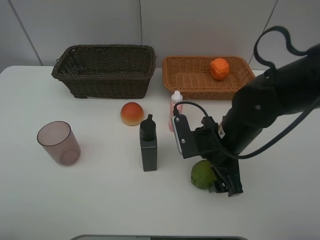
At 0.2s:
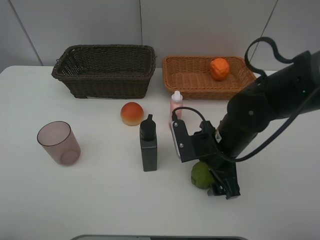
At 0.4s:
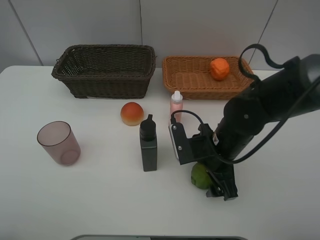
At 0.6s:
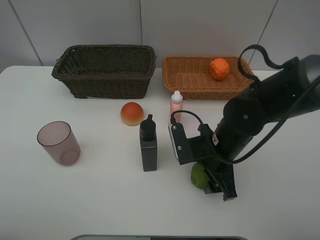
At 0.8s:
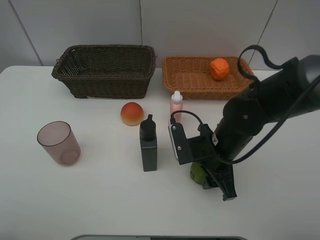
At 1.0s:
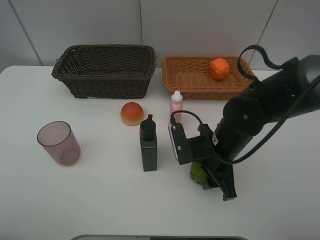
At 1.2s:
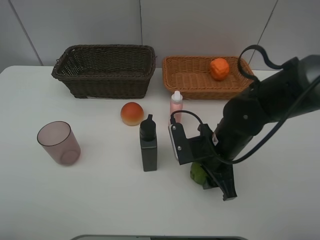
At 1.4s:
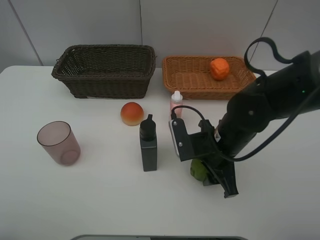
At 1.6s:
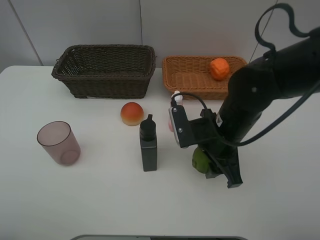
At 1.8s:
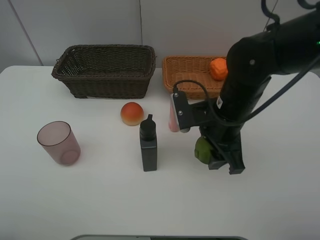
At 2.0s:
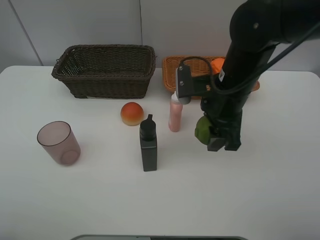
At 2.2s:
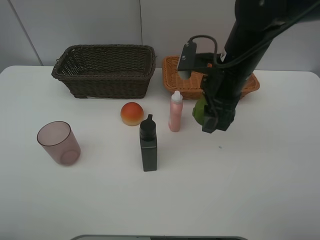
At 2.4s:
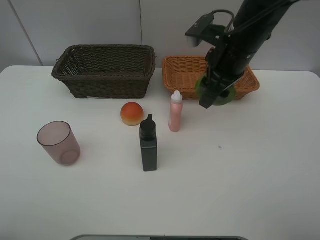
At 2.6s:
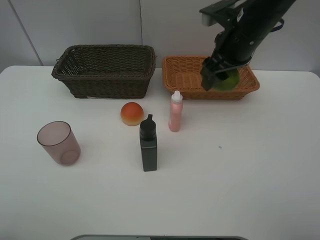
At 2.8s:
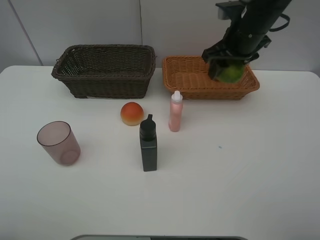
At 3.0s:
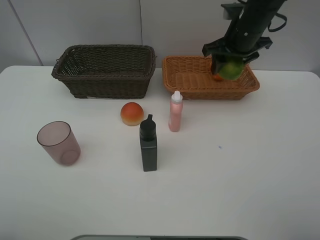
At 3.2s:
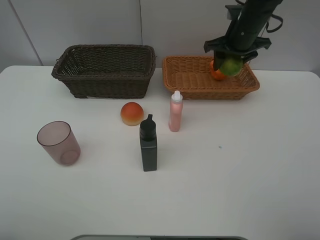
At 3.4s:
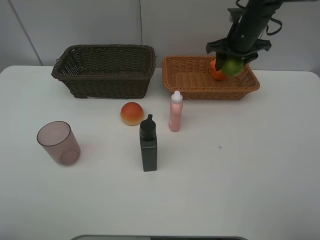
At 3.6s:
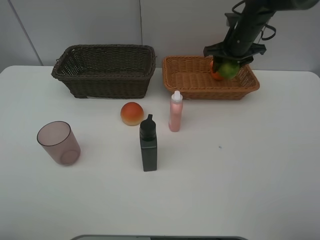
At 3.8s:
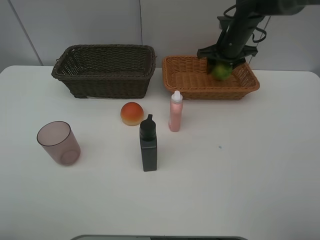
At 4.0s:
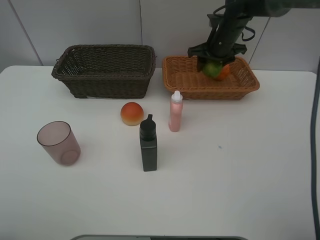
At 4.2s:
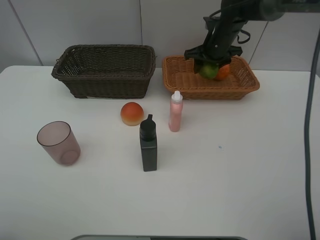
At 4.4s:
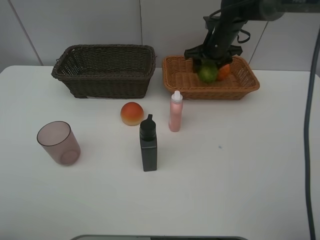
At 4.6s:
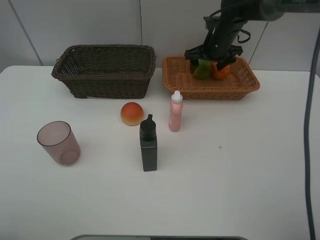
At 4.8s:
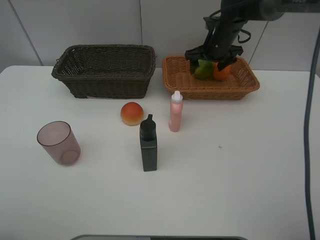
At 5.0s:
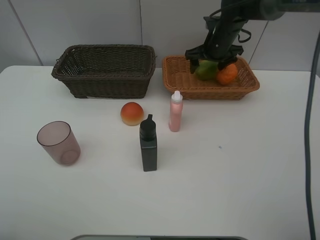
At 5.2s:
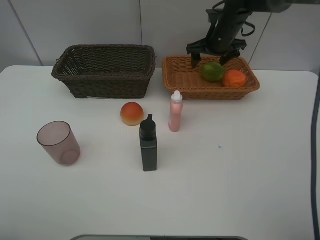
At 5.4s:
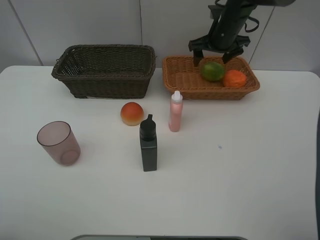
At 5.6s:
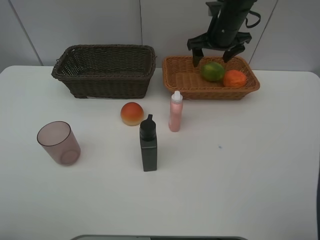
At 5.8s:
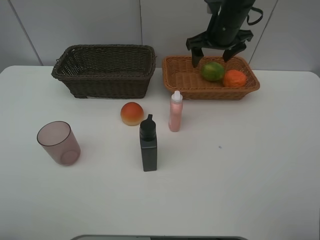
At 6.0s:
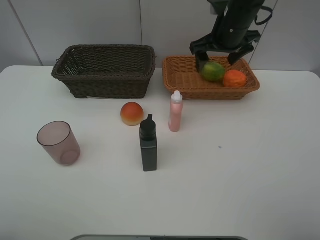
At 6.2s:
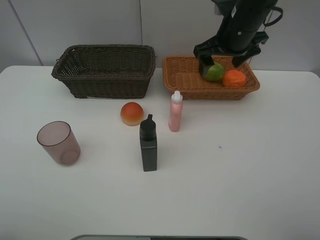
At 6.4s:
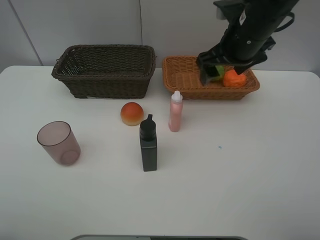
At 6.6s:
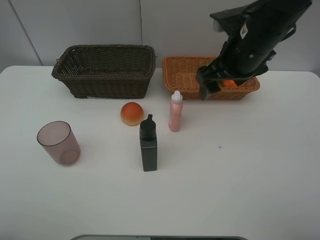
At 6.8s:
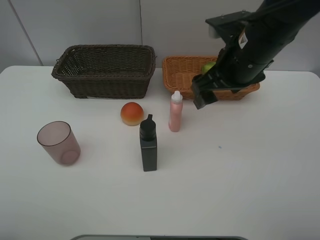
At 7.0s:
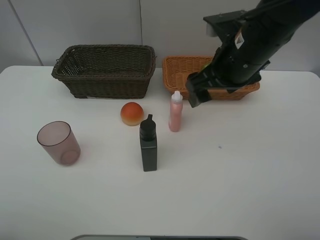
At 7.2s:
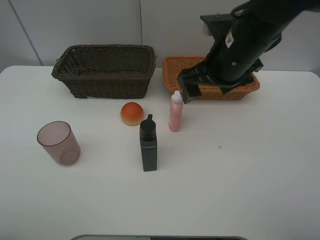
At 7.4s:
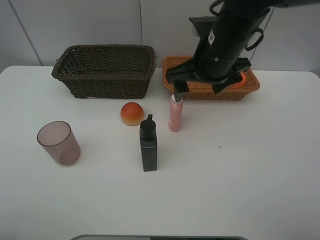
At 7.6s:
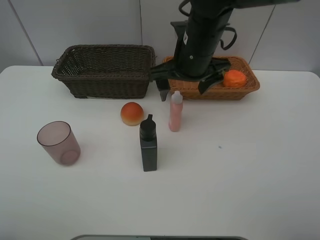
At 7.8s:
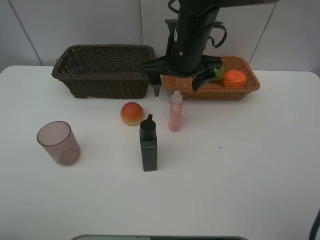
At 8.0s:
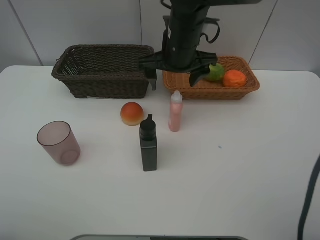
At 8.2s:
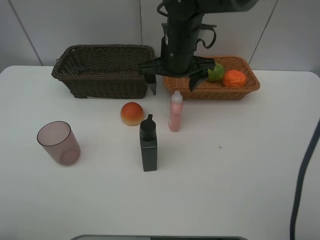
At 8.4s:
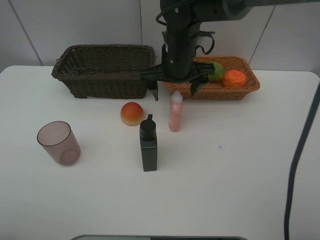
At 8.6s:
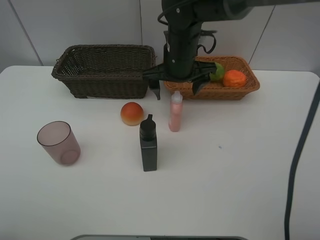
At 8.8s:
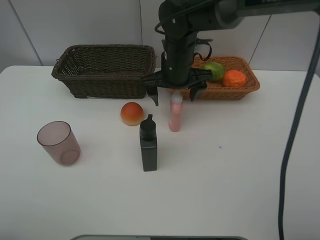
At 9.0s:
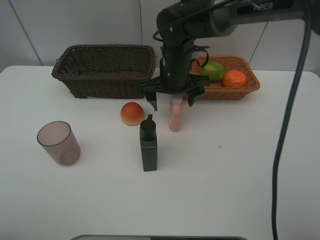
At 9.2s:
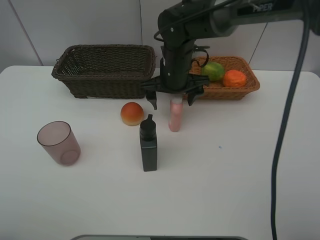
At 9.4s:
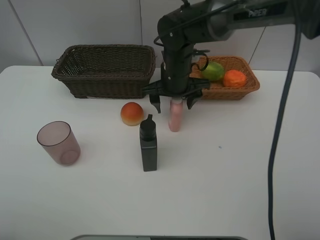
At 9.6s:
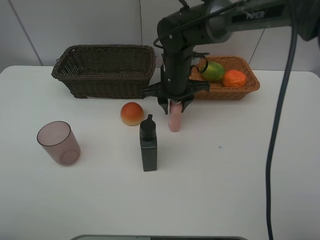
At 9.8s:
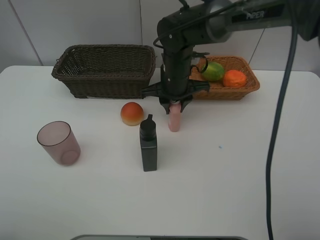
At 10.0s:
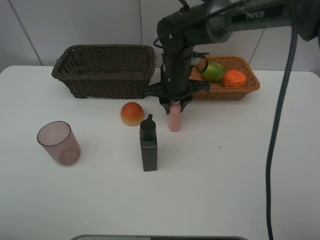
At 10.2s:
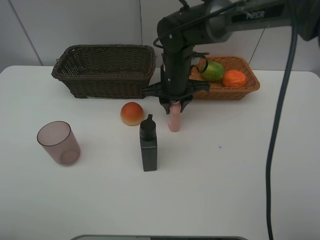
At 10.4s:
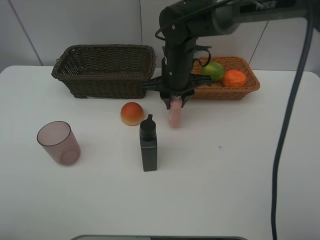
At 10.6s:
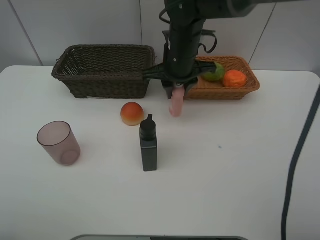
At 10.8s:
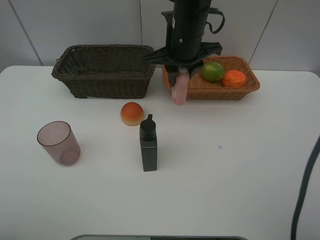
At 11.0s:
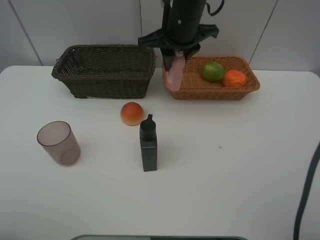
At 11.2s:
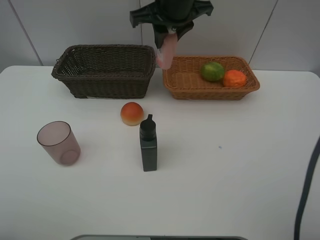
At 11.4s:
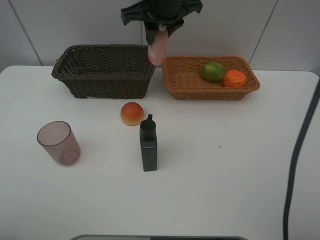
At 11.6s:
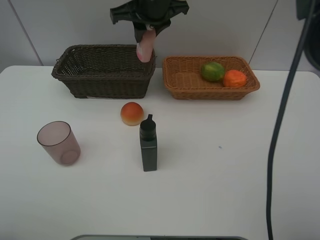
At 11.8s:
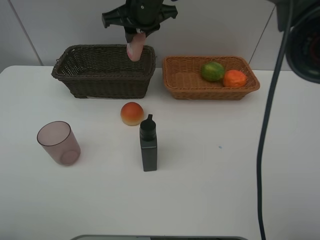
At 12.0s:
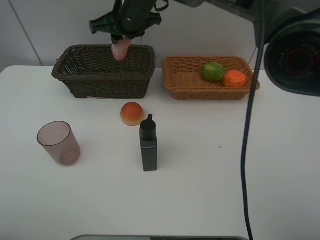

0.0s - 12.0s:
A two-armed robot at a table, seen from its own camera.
Task of the whole recording: place multiple objects separately in different baskets.
0.0s - 1.6s: The right gripper closes up.
1.6s - 3.0s: The right gripper moves forward and upward, some 20 cm.
3.0s - 4.4s: The right gripper goes about 10 cm forward and downward.
4.4s - 6.0s: The right gripper travels backward and upward by approximately 10 cm.
6.0s - 7.6s: The right gripper is displaced to the left and backward by roughly 10 cm.
7.6s - 9.0s: The right gripper goes approximately 5 cm downward.
9.0s - 10.4s: The right gripper closes.
10.4s - 12.0s: The right gripper shifts about 15 cm to the left, upward and forward.

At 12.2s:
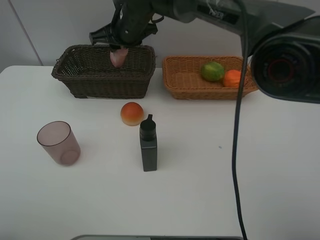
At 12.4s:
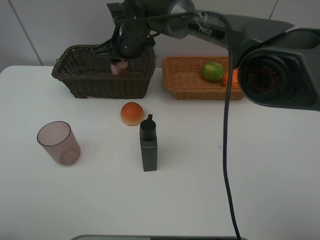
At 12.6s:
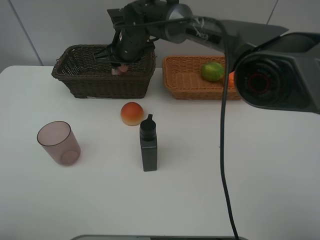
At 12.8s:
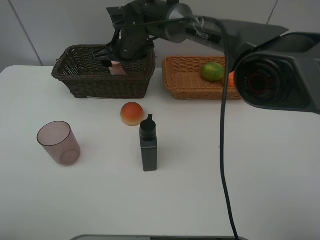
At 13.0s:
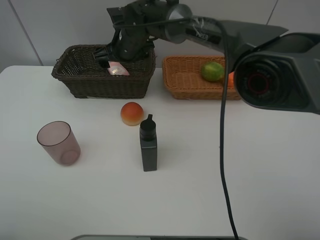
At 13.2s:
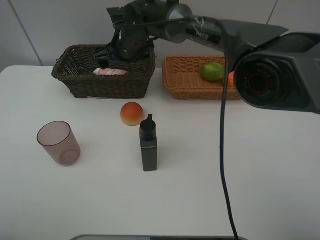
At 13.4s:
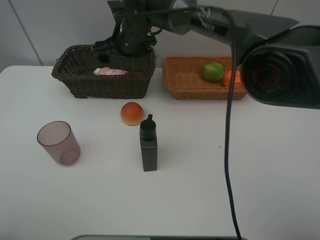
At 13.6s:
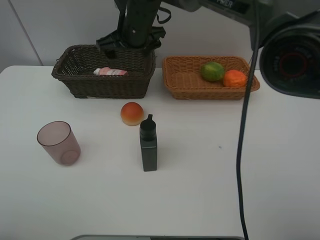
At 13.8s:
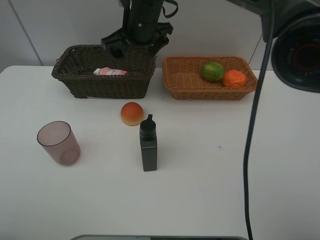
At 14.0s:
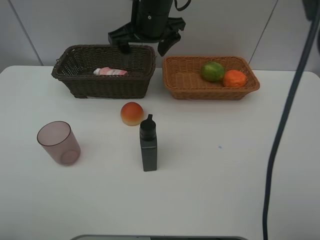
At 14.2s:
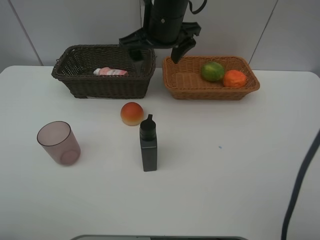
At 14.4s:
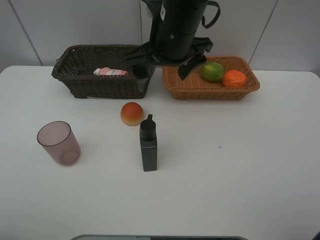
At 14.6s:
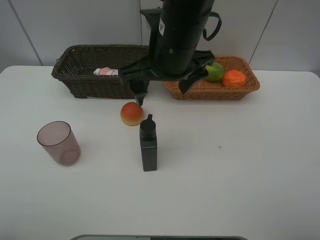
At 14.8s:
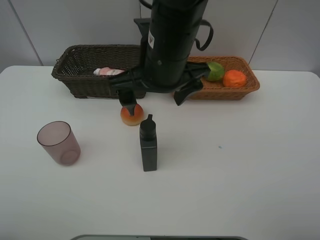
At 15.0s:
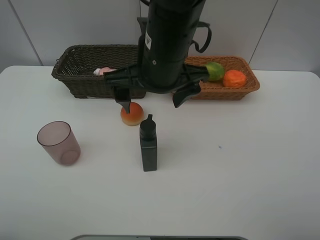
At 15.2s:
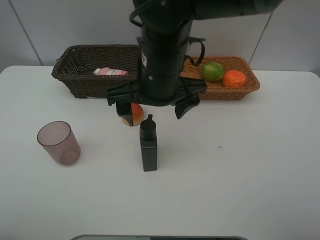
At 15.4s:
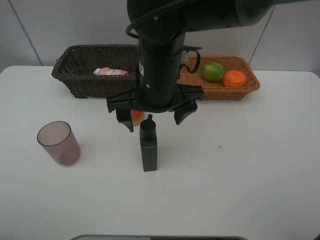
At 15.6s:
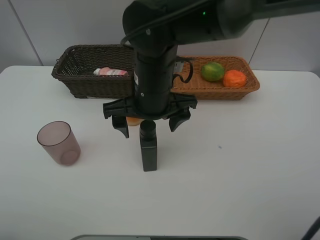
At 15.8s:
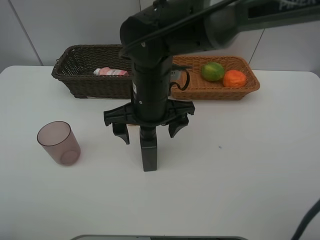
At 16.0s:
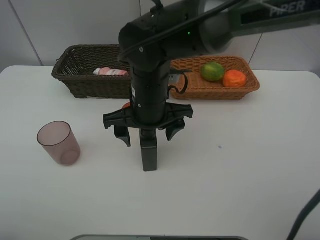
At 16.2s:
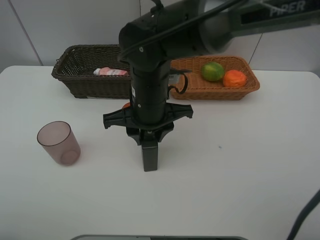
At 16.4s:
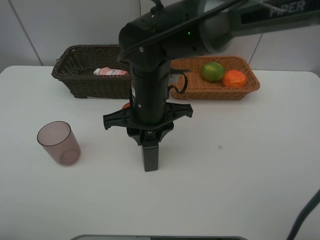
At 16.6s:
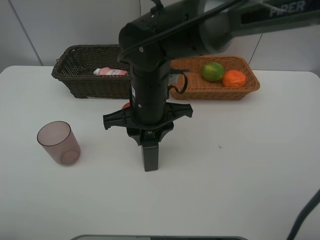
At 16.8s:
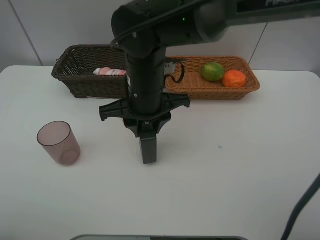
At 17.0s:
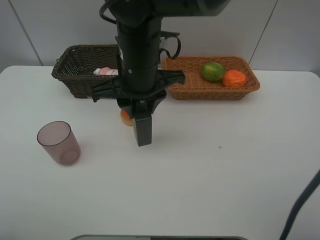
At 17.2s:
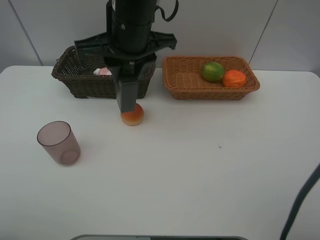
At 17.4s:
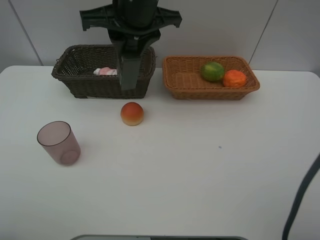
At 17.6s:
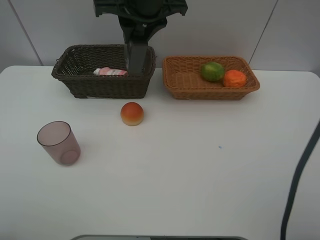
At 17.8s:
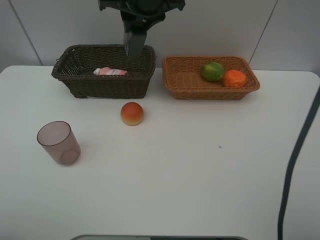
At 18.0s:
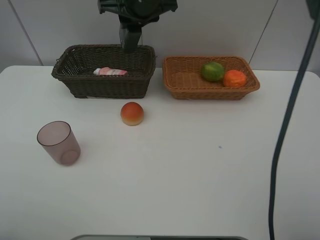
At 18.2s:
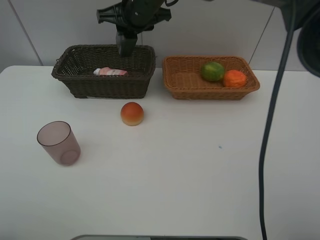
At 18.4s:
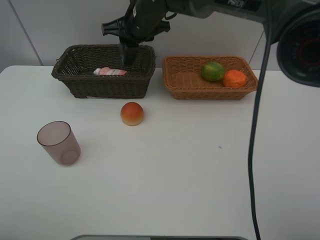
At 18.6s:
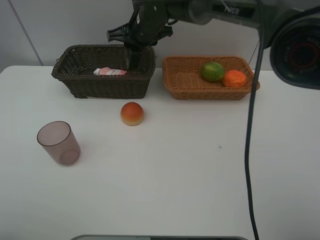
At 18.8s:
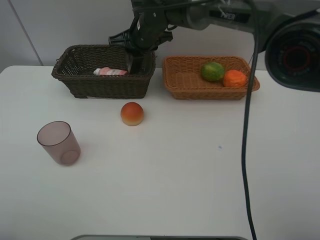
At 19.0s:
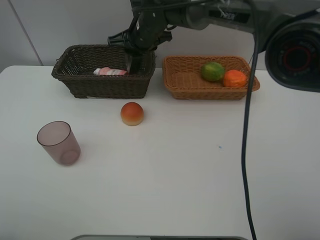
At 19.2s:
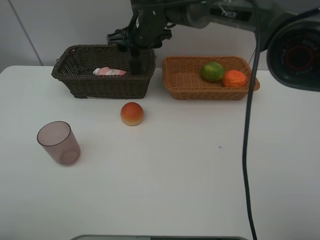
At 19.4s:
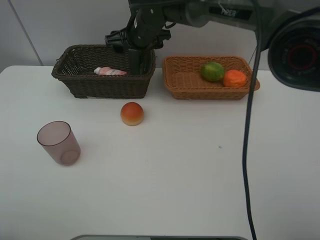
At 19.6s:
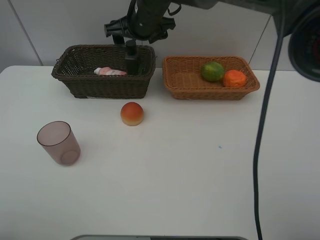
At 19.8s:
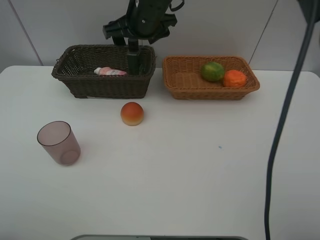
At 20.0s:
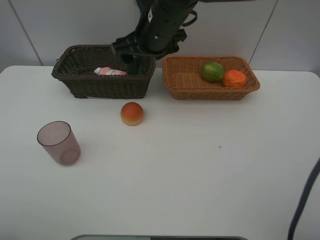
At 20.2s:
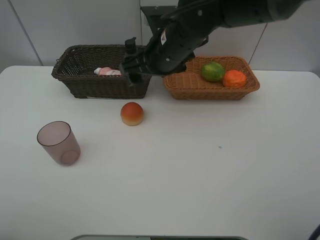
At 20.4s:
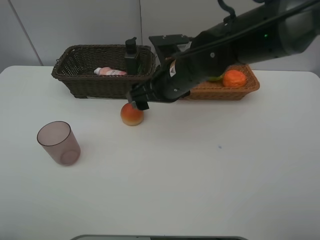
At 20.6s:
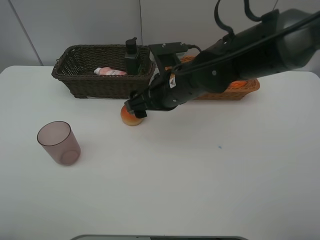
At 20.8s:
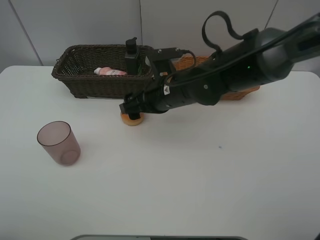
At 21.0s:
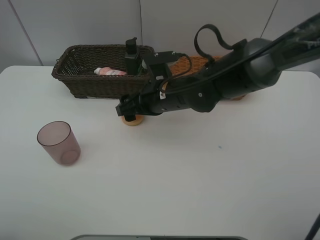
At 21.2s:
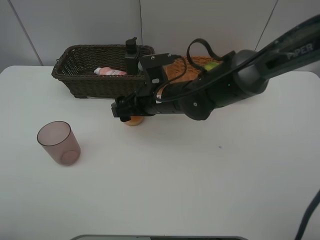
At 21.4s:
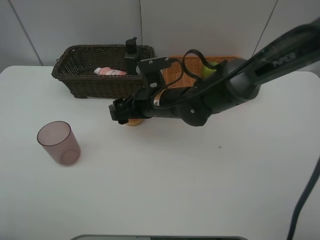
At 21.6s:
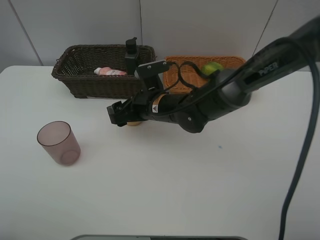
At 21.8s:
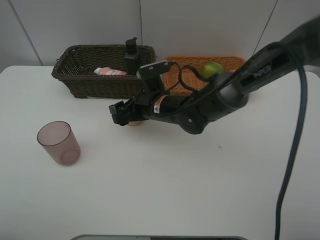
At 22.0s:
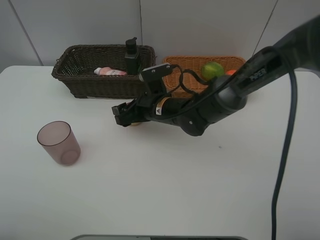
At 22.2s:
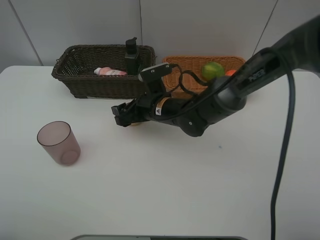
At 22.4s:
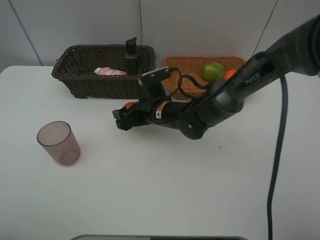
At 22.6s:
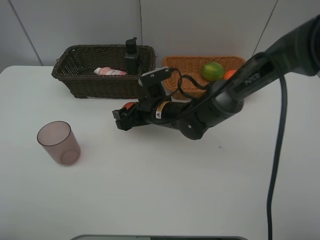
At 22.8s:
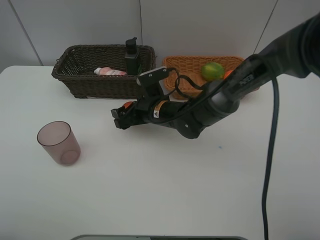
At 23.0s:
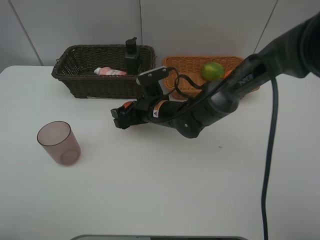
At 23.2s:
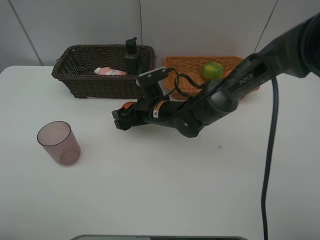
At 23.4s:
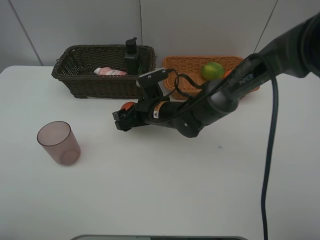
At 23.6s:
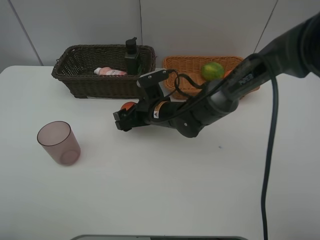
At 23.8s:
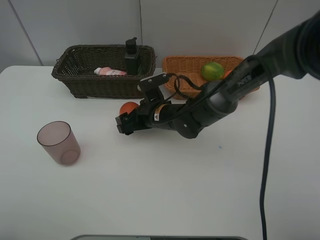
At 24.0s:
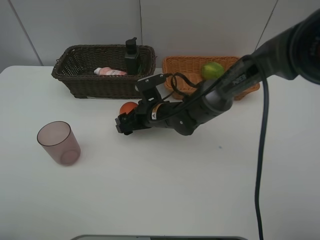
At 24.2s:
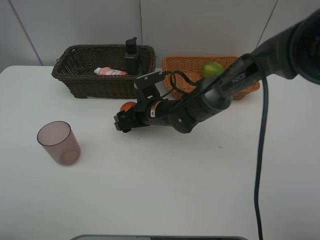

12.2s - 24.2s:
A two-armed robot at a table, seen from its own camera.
Task of the whole recording: place multiple objects separately in different baskets.
12.2s - 13.8s: The right gripper ends up some 5 cm from where it was, and opens its fingers.
13.8s - 15.2s: The right gripper is displaced backward by about 15 cm.
15.2s - 16.6s: The right gripper goes some 5 cm downward, and closes up.
16.6s - 18.2s: The right gripper goes some 20 cm forward and upward.
18.2s - 19.8s: The right gripper opens.
19.8s - 21.2s: The right gripper heads downward and backward, covering approximately 15 cm.
21.2s - 22.6s: The right gripper moves downward, some 5 cm.
22.6s - 24.2s: The grippers make only small movements.
